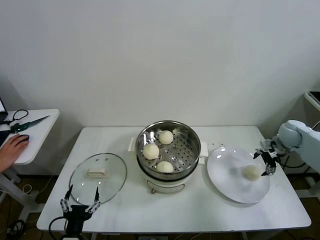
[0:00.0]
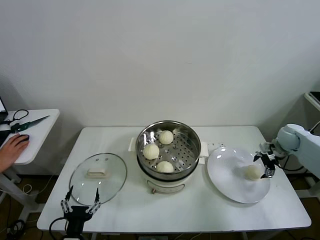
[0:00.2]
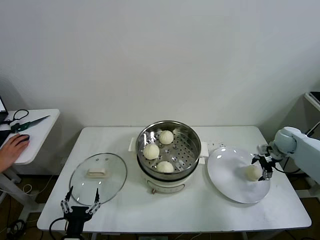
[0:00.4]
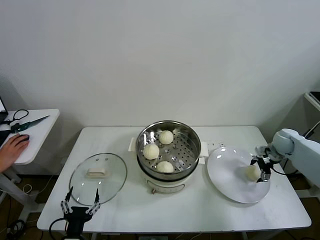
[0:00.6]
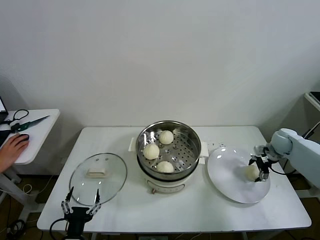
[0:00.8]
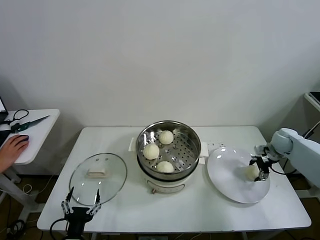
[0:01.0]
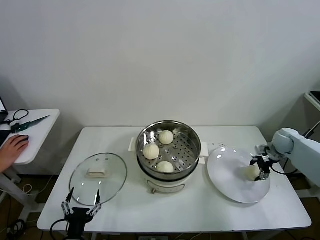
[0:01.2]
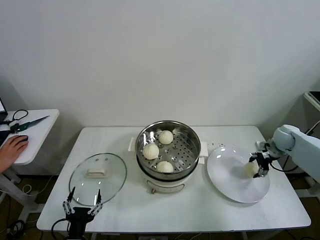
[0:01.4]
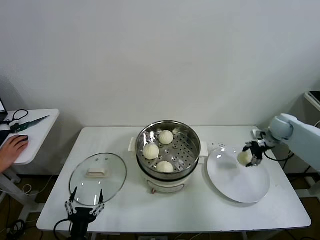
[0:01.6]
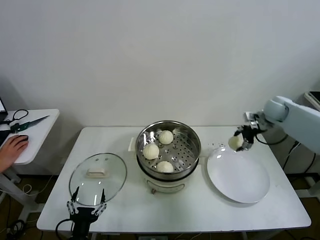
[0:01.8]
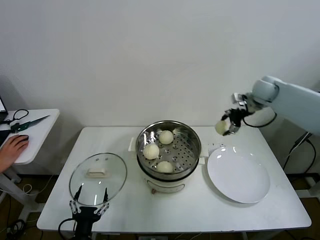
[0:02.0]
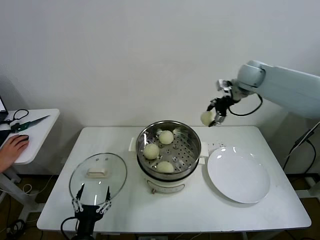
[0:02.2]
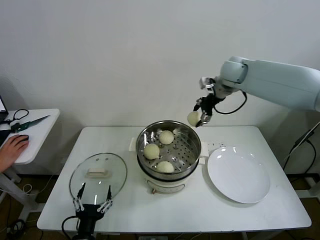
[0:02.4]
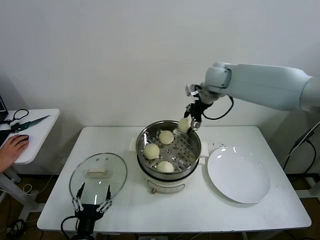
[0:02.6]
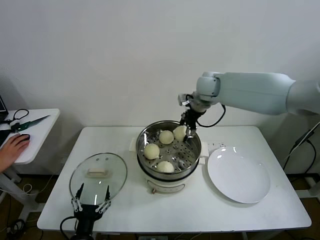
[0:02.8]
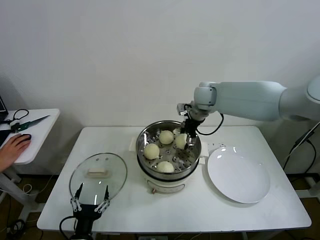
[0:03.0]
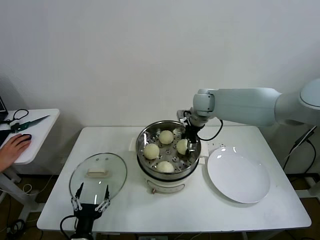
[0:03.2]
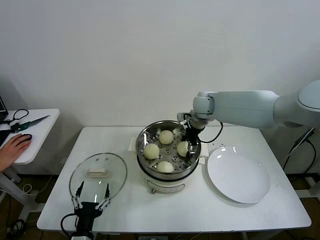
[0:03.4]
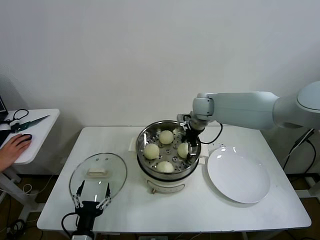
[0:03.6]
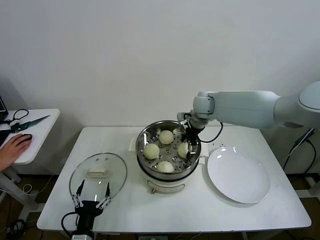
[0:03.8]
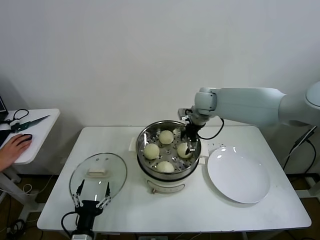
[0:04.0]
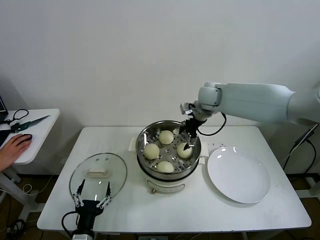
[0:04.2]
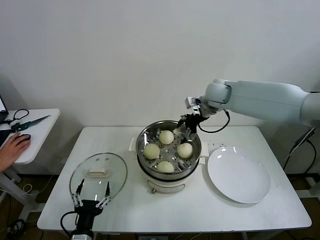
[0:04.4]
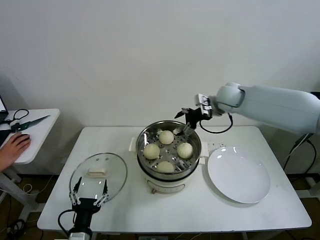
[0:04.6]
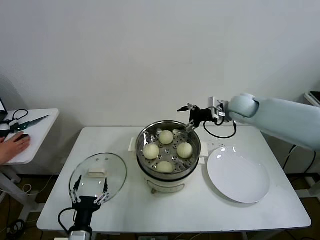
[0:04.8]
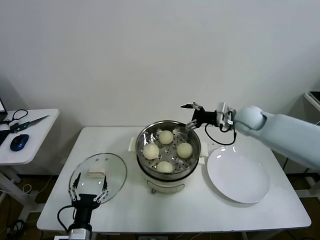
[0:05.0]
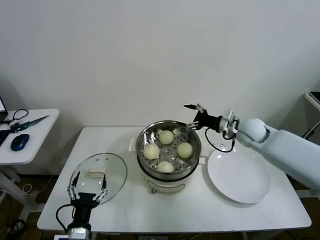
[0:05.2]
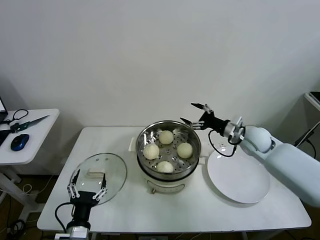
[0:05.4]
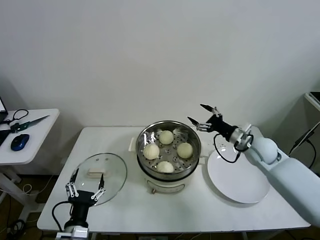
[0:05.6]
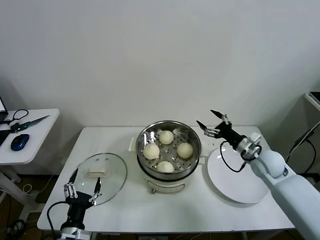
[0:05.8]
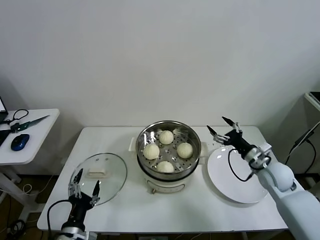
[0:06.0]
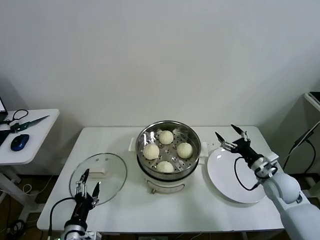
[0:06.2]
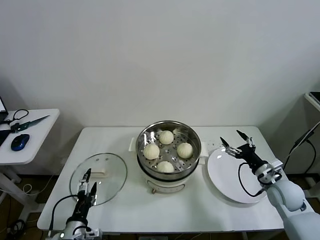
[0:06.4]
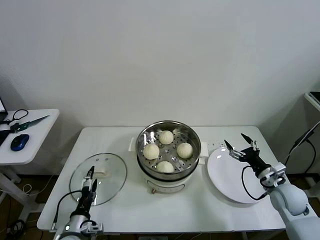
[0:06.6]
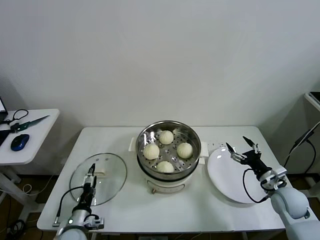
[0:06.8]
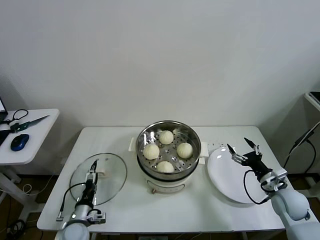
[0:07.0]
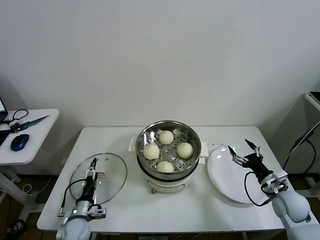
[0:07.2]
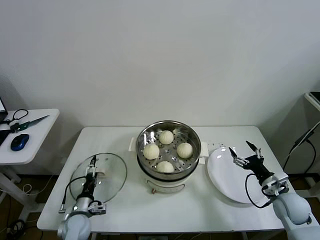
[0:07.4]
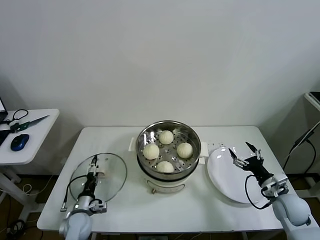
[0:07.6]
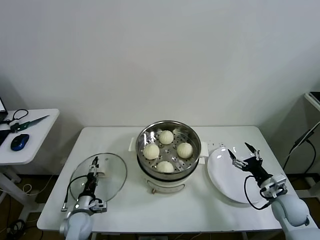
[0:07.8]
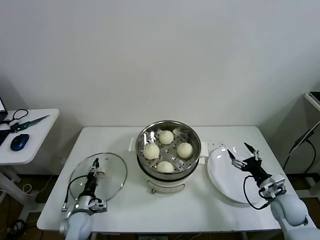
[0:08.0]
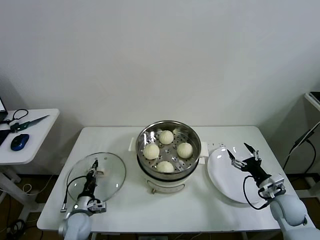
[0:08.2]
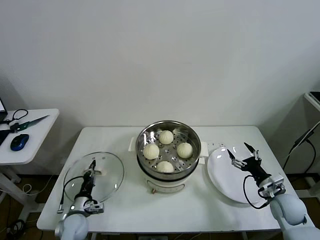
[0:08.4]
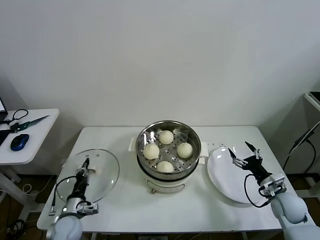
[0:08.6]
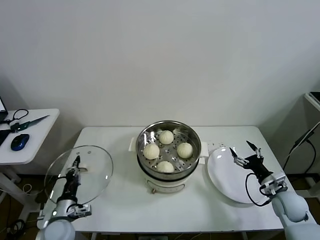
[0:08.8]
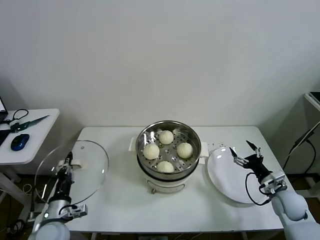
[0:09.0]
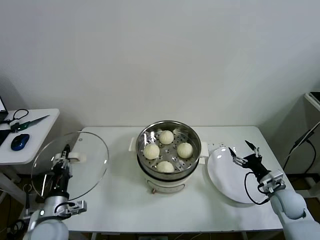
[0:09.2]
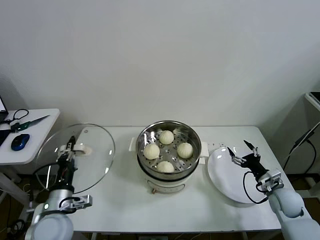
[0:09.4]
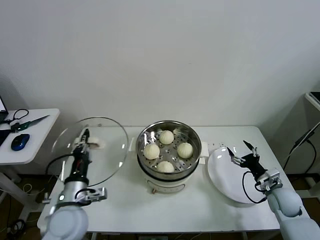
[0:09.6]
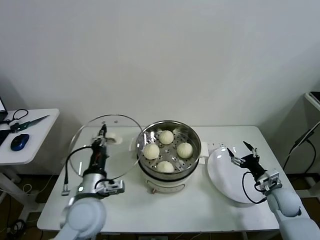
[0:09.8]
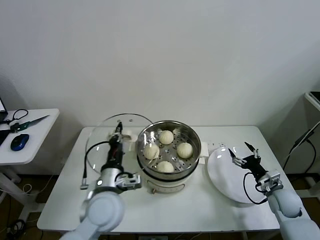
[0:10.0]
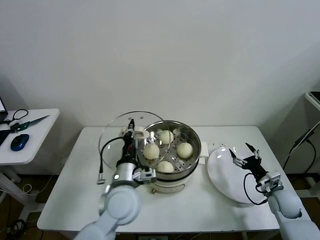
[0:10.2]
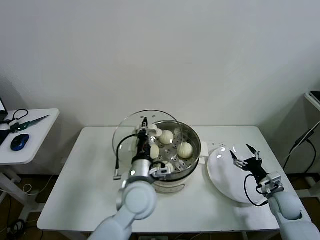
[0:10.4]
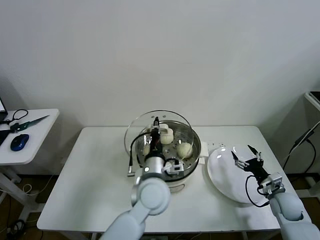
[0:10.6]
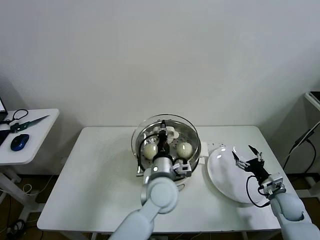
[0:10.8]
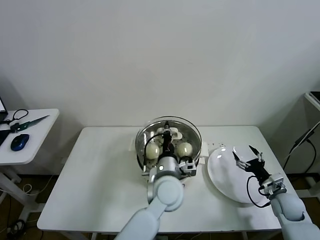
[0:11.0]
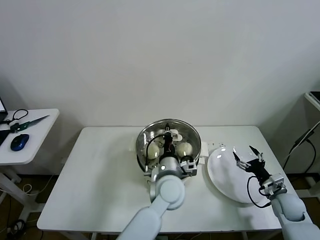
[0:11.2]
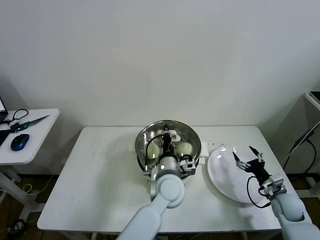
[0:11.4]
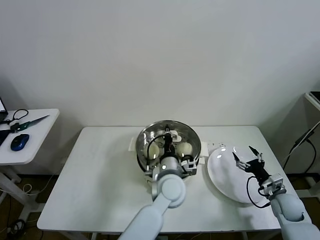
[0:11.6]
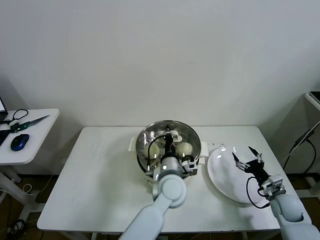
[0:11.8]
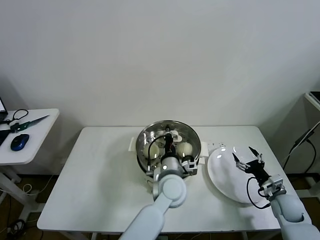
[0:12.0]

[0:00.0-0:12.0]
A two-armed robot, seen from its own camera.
Task of the whole recording: take steamed baozi put them in steamer then cover it.
Step, 0:01.2 to 0:03.8: Place the baozi on the steamer with right gripper.
Step, 0:04.0 to 0:08.2: Grasp the pot lid with left gripper.
0:00.0 to 0:01.6: The grippers make only small movements.
0:01.6 to 0:03.0: The right gripper shifts about 30 cm to the left.
0:03.0 to 0:04.4: The grippers stay close to where they were, moving slightly.
0:04.4 to 0:06.0: The right gripper shifts roughly 35 cm downward, backward and to the right.
0:06.0 to 0:07.6: The right gripper travels backward and downward by roughly 10 cm, while the left gripper goes roughly 20 cm forward and downward.
0:07.6 to 0:09.0: The left gripper is displaced upward and backward by some 10 cm, and closes its fingers.
0:09.0 to 0:10.4: The left gripper shifts some 30 cm to the right and upward.
0:10.4 to 0:12.0: The left gripper shifts some 10 cm to the right.

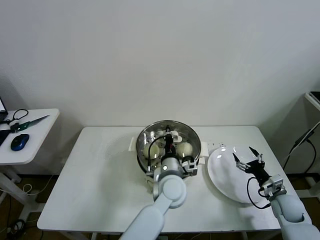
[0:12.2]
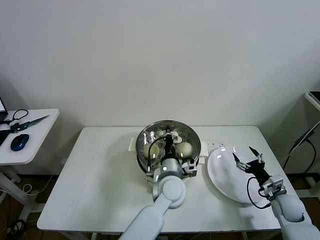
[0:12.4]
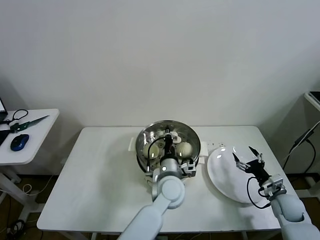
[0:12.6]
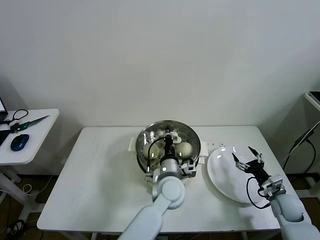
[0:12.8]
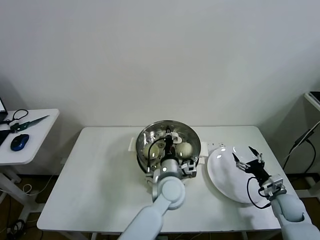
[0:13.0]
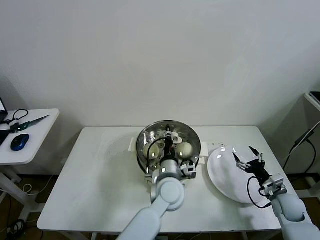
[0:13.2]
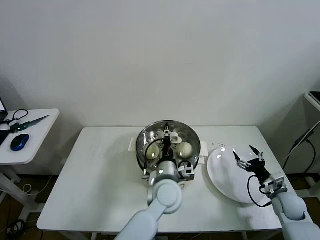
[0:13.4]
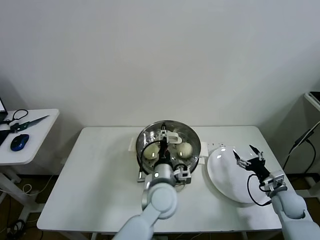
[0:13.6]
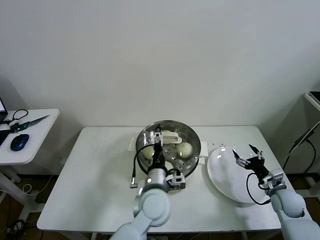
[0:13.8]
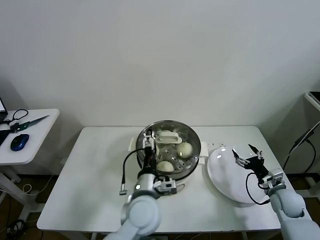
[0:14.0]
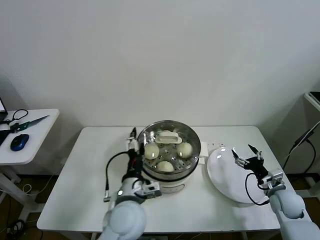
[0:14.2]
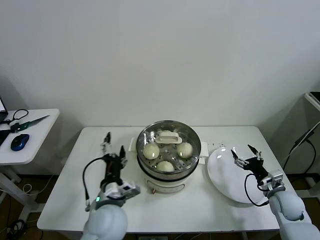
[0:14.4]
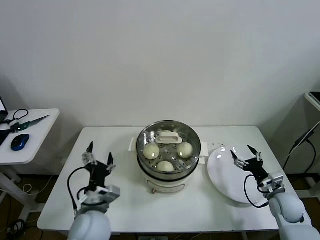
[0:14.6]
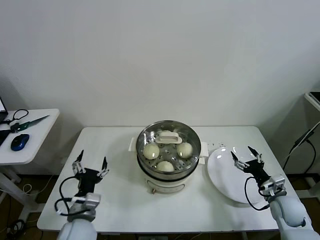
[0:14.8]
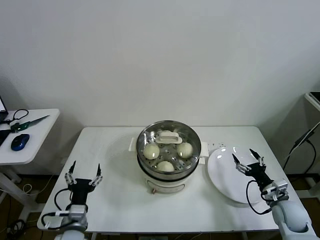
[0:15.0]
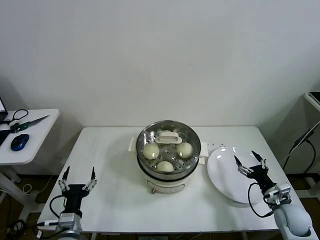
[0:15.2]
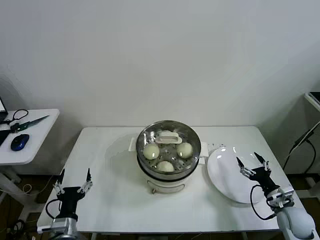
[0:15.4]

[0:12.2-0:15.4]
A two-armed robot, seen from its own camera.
Task of the whole recording: take steamed baozi put them in steamer then cover it.
0:12.2 to 0:13.8: The left gripper shifts by about 5 cm, and opens up.
0:13.8 to 0:15.4: The left gripper shifts some 30 cm to the left and backward. The right gripper travels backward by approximately 5 cm.
